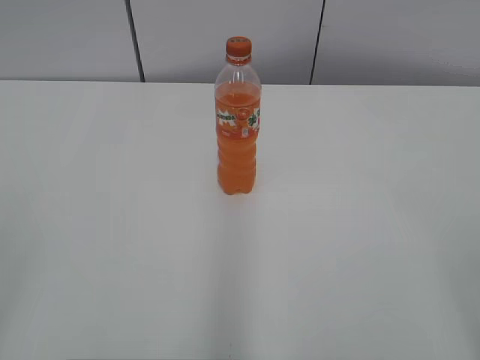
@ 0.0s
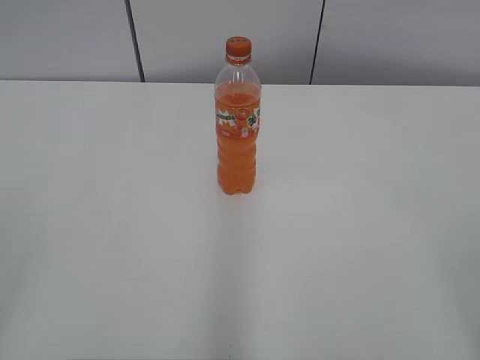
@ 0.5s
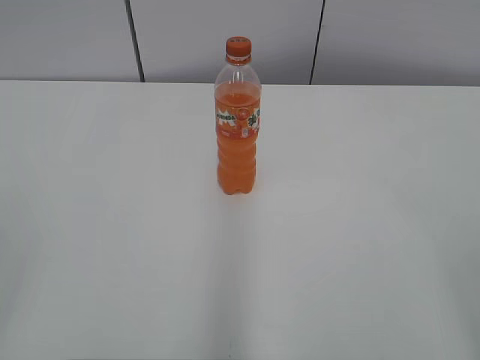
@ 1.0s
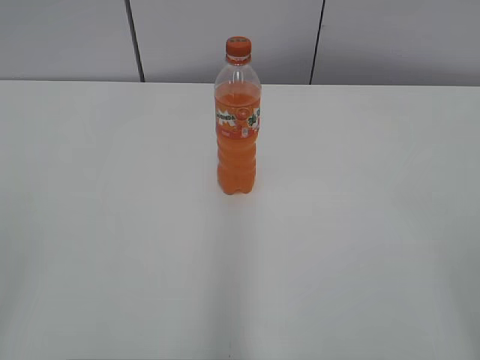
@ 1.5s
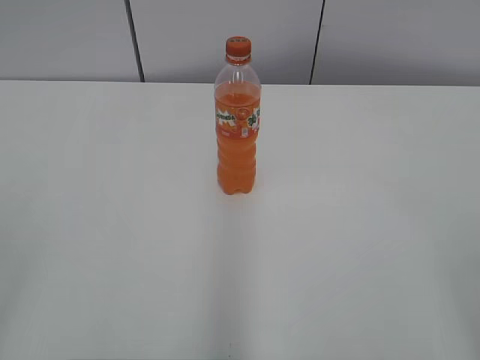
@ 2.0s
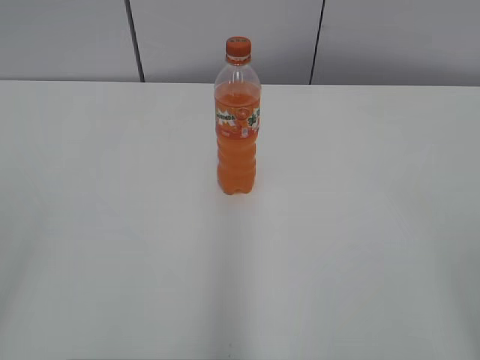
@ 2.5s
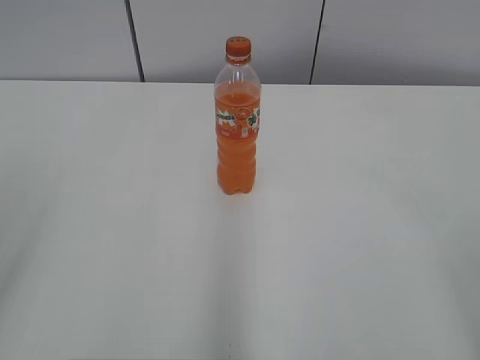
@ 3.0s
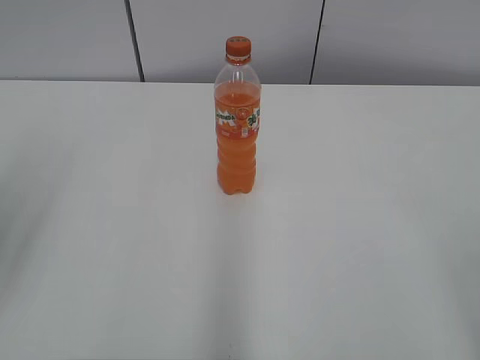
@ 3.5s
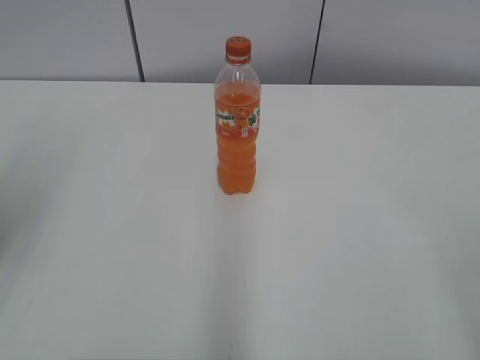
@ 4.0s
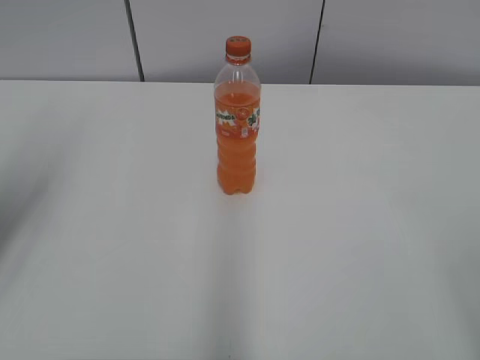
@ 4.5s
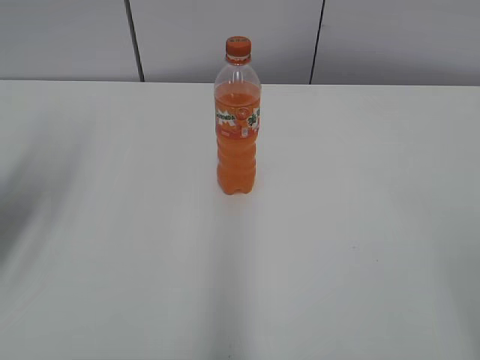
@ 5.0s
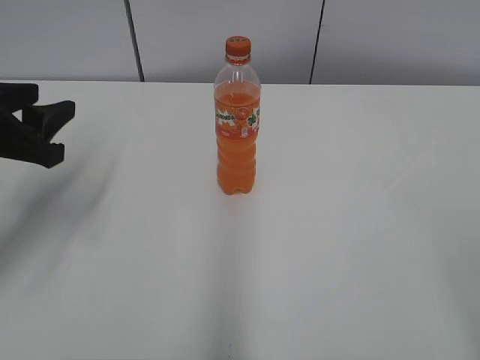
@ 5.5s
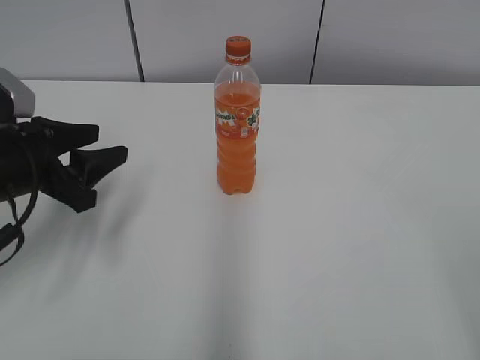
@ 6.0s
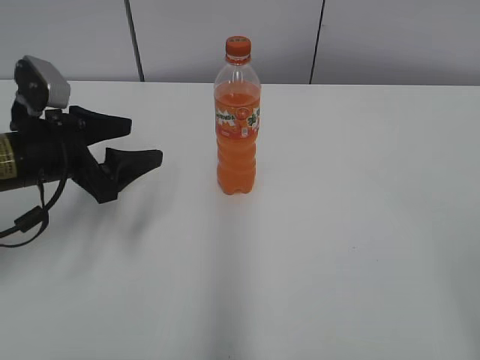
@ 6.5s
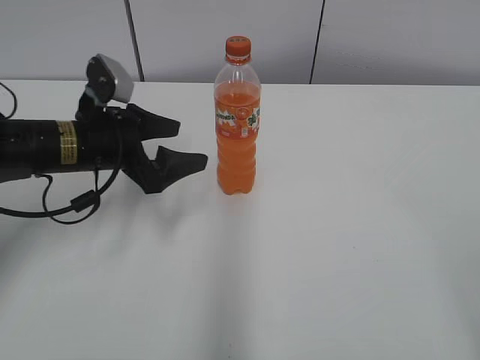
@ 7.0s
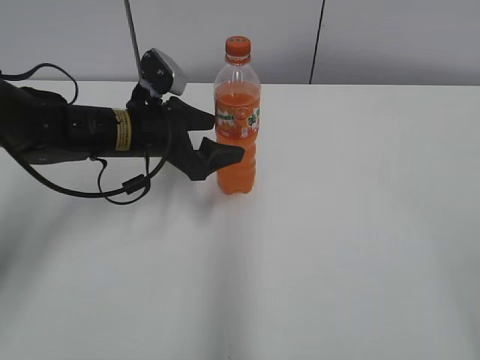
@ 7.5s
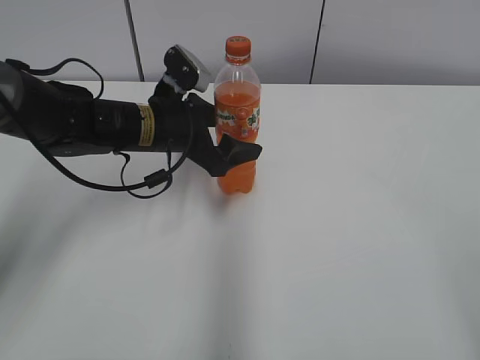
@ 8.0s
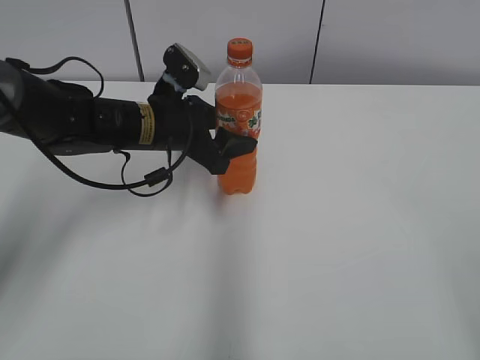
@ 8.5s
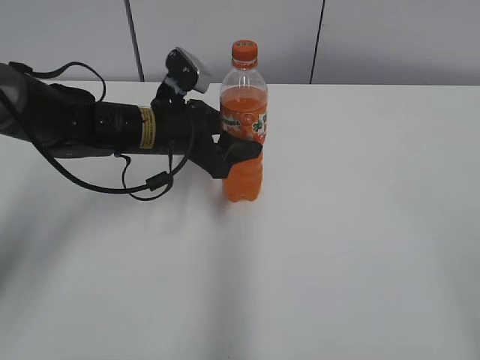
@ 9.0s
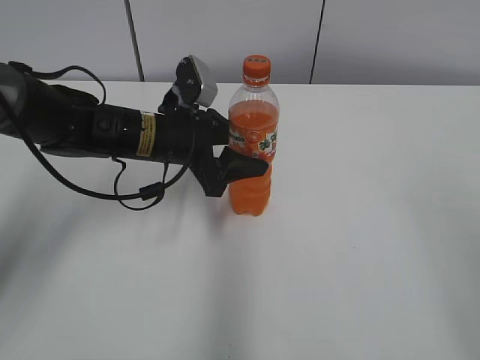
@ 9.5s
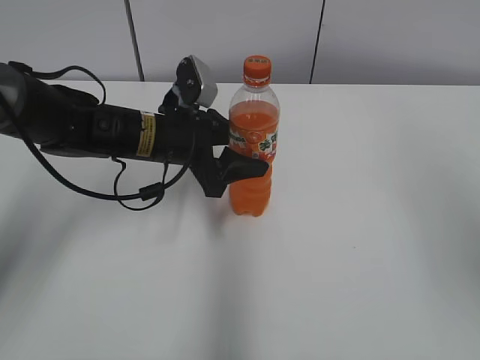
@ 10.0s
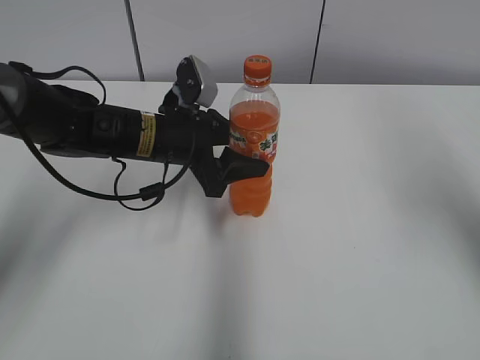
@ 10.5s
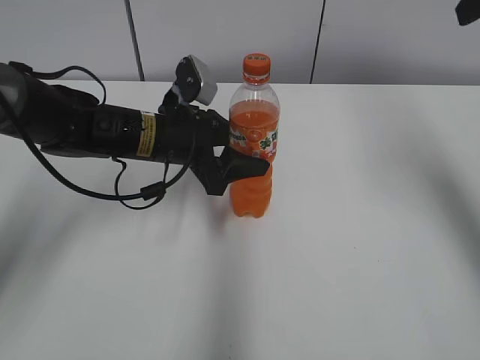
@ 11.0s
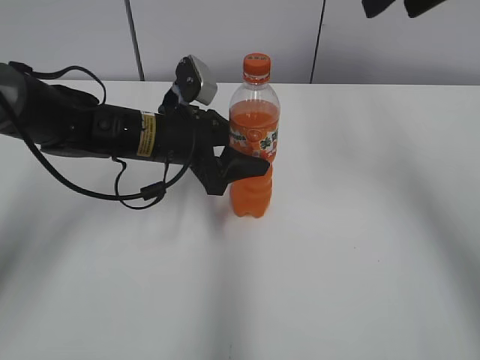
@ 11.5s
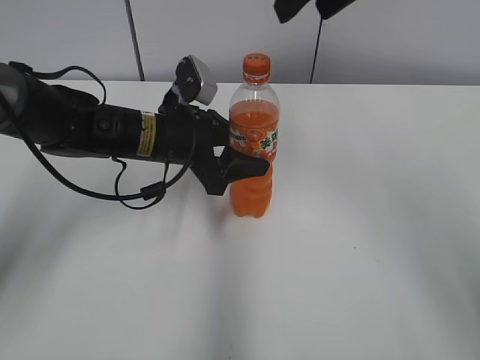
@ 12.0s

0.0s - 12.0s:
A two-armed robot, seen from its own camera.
Step, 0.0s - 8.5s: Grab the Mirinda with the left hand.
4.0s - 6.0s: The left gripper shifts roughly 20 cm downward and forward.
6.0s - 8.0s: The left gripper goes approximately 20 cm to the right and forward, and opens up.
8.0s - 10.0s: The left gripper closes up. The right gripper shifts roughly 15 cm forward and upward, and closes up.
10.0s - 12.0s: The right gripper heads forward and to the left, covering roughly 25 cm.

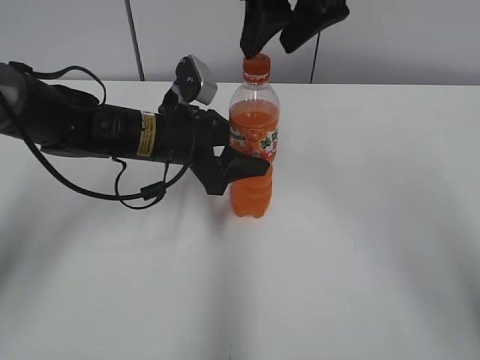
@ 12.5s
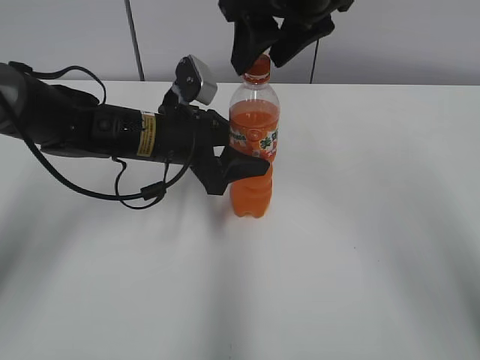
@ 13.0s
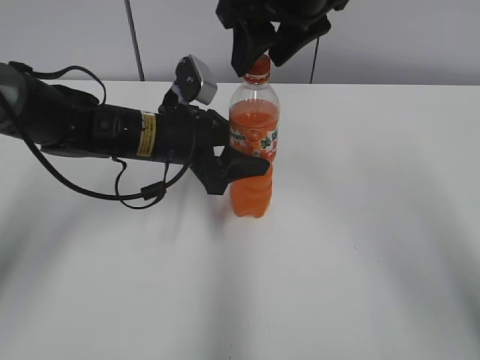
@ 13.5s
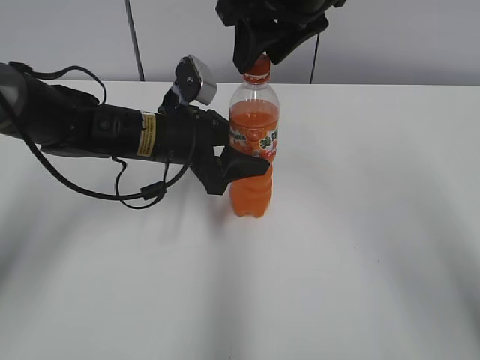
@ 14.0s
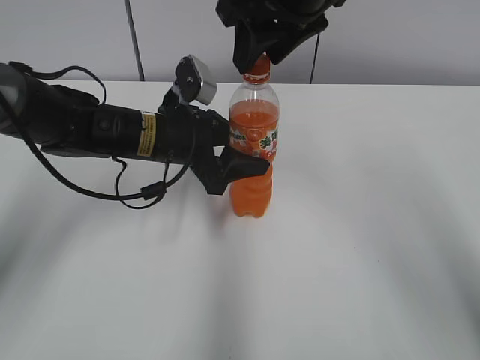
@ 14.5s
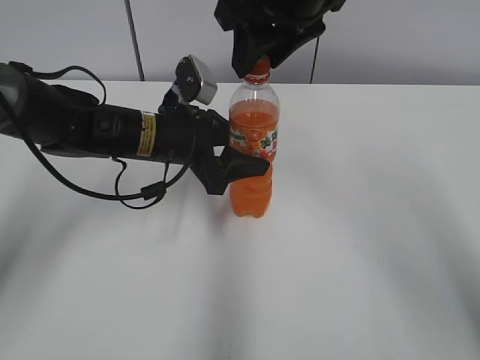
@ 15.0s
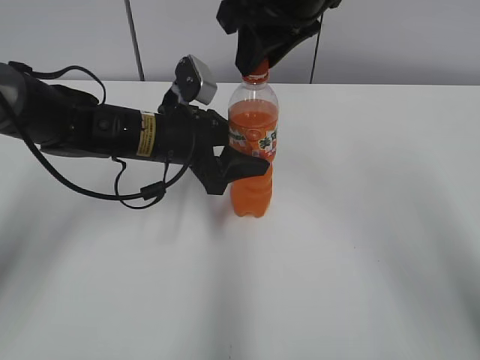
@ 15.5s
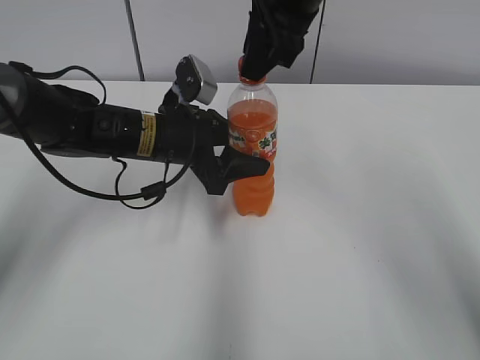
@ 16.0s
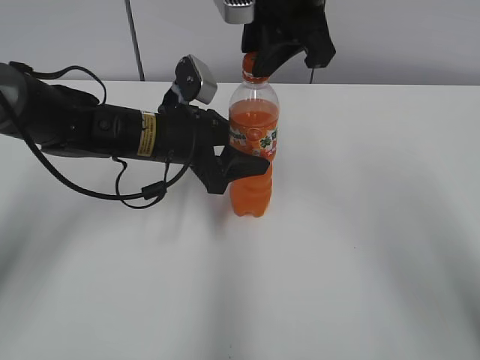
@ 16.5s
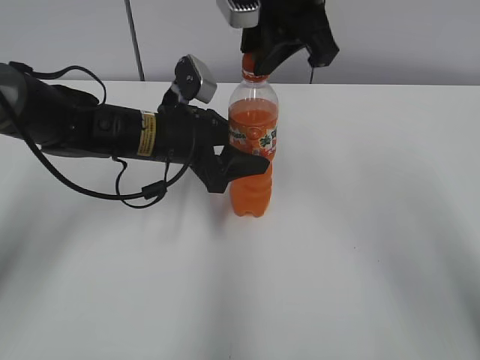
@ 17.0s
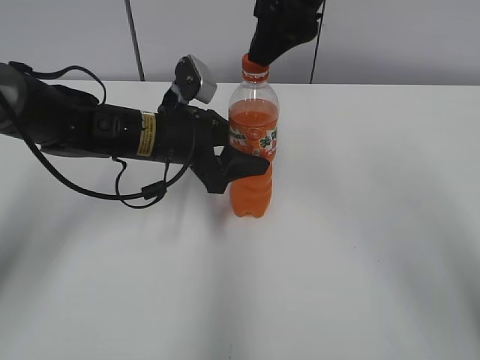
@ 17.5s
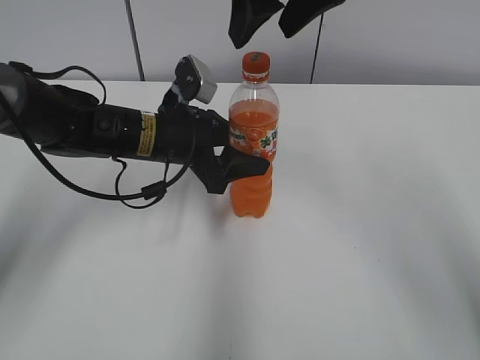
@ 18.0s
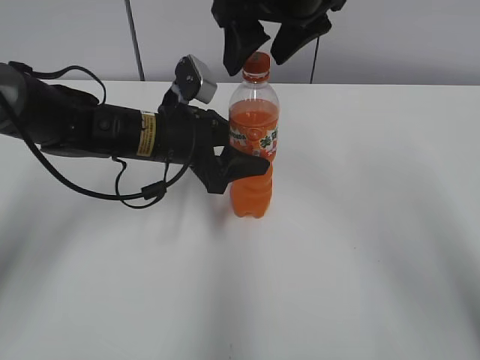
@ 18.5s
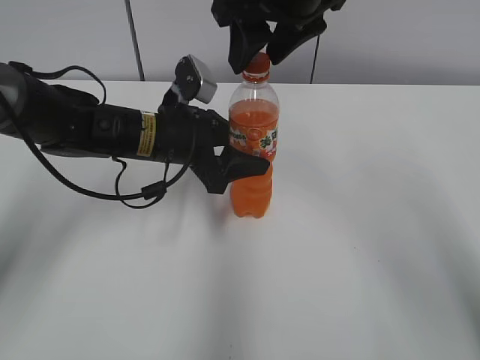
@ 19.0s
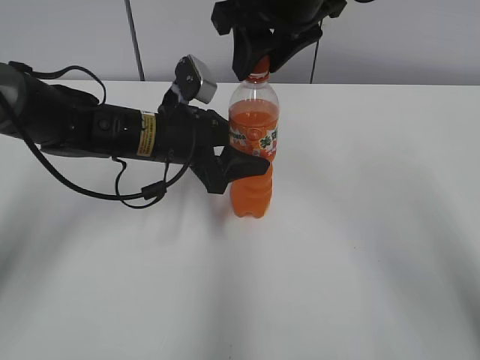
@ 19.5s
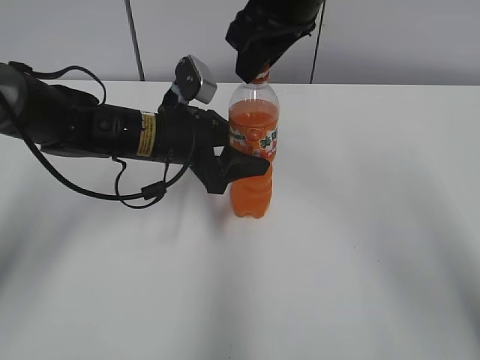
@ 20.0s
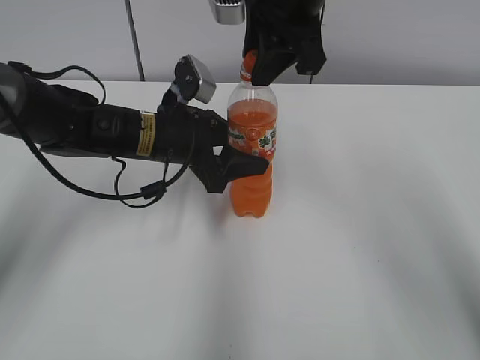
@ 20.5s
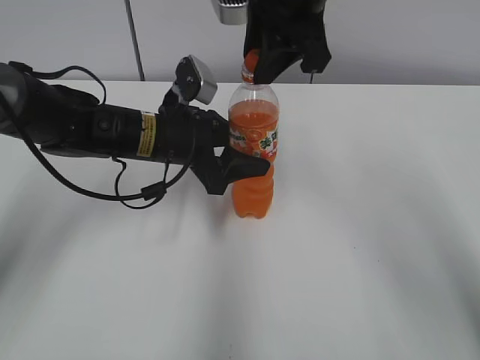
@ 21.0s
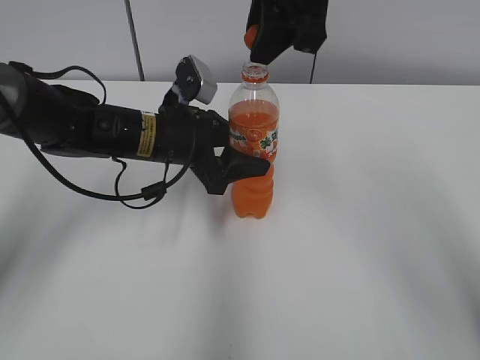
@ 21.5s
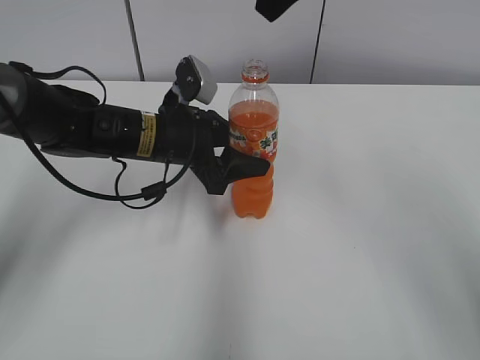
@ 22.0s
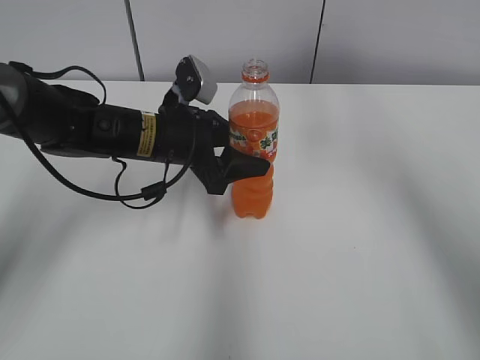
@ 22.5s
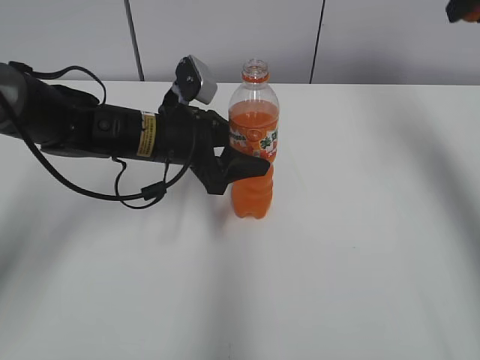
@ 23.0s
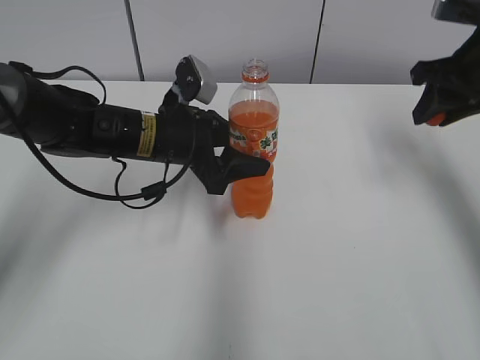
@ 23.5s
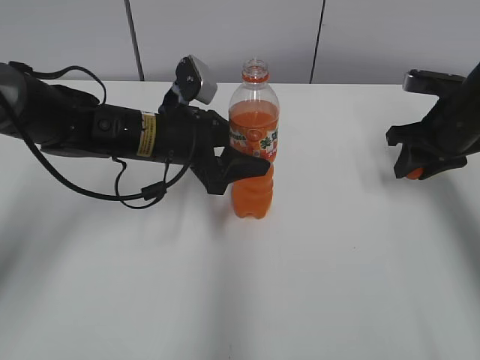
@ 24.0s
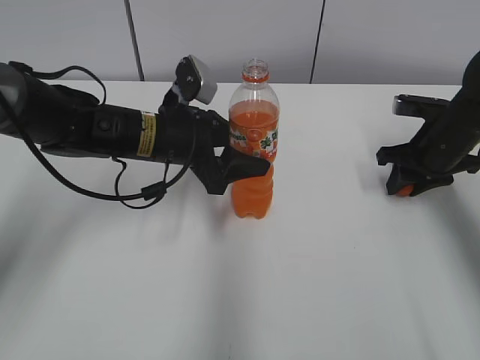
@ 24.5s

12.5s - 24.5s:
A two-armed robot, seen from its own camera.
12.5s - 14.5s: The grippers make only small movements.
14.5s - 16.5s: The right gripper closes up.
16.5s - 18.5s: The right gripper opens.
18.5s - 20.5s: The right gripper closes.
20.5s - 22.5s: The right gripper goes some 10 cm upward and to the right.
22.5s - 24.5s: The right gripper travels downward and to the right by some 35 cm.

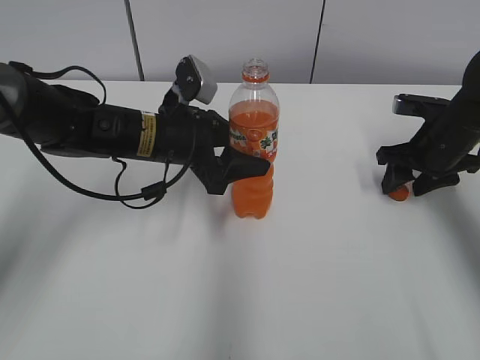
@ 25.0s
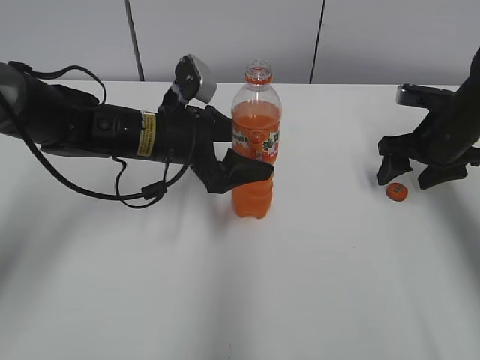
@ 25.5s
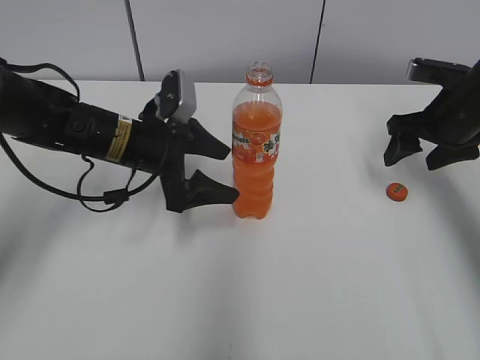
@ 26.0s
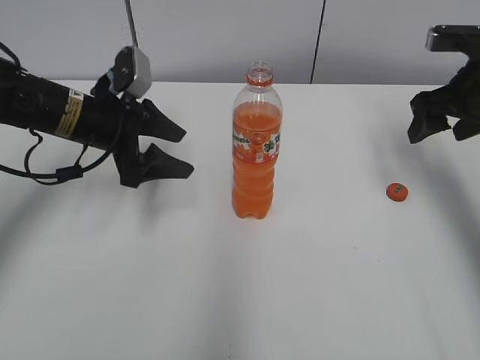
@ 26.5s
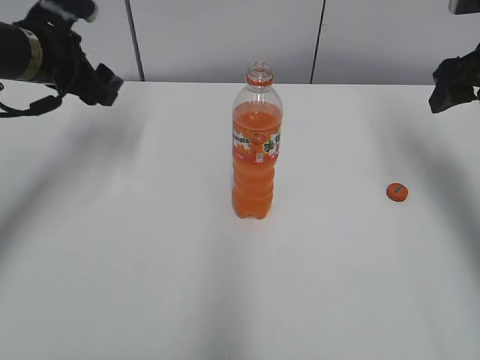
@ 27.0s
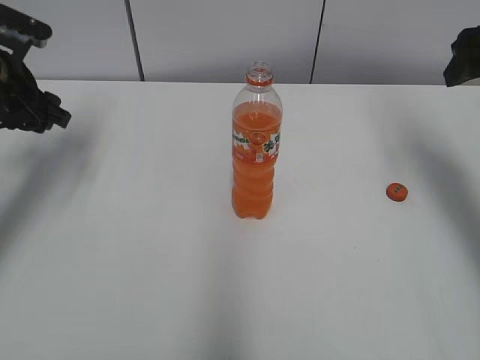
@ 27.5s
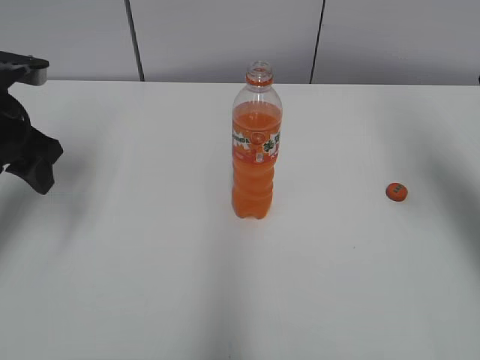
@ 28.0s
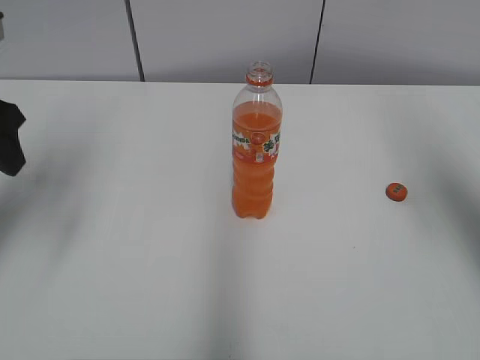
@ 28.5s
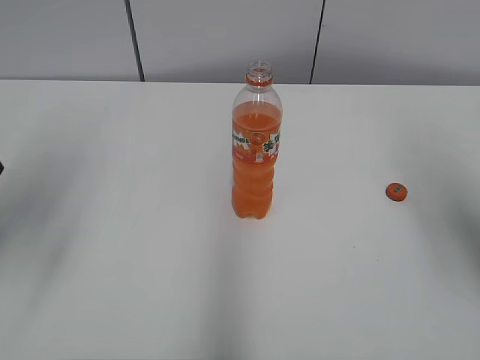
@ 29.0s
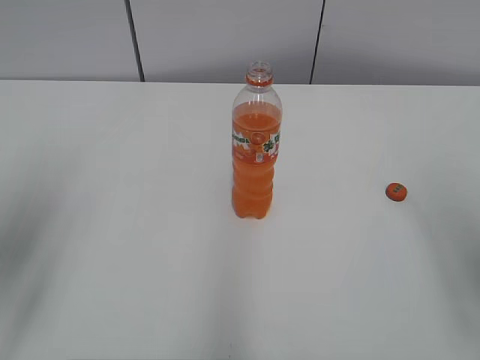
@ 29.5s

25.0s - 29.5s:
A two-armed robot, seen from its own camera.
25.0s - 27.0s: The right gripper is displaced upward by some 15 cm, and opens up; the left gripper is displaced to the left and upward by some 15 cm, and opens, then closes once more.
27.0s - 29.5s: Both grippers travel together backward, roughly 20 cm.
